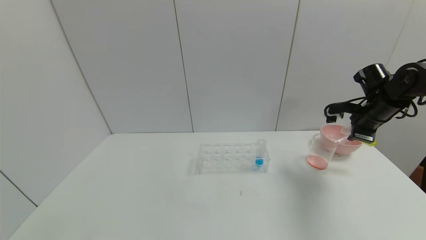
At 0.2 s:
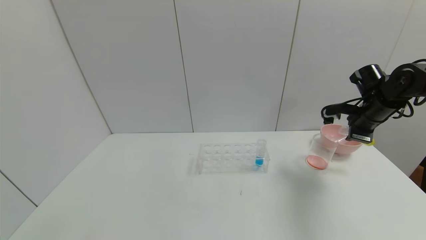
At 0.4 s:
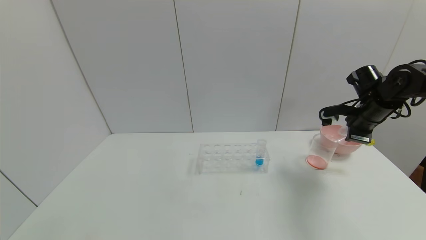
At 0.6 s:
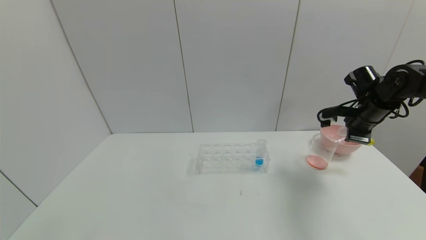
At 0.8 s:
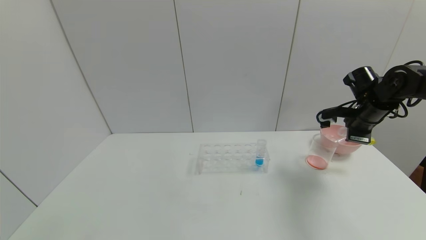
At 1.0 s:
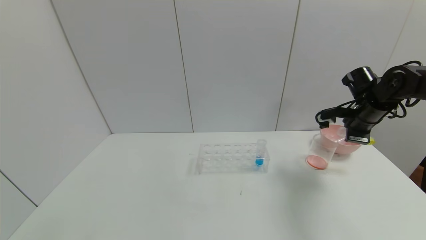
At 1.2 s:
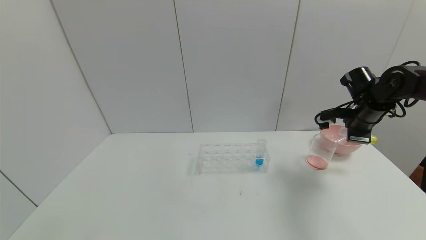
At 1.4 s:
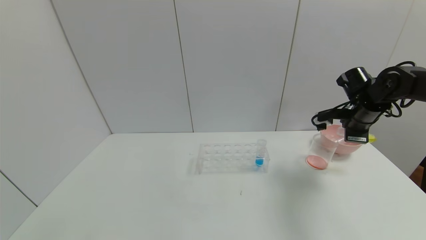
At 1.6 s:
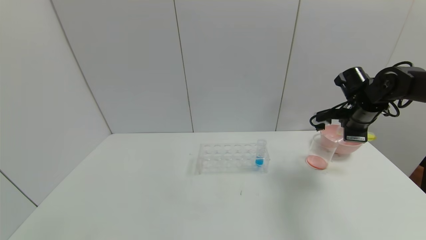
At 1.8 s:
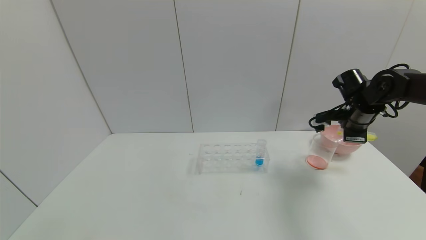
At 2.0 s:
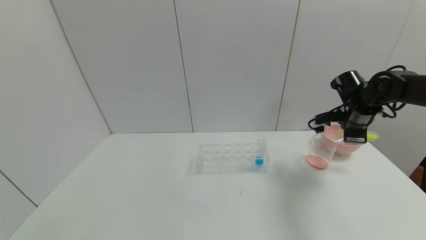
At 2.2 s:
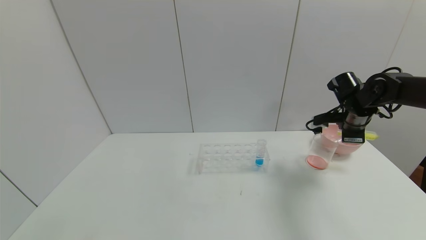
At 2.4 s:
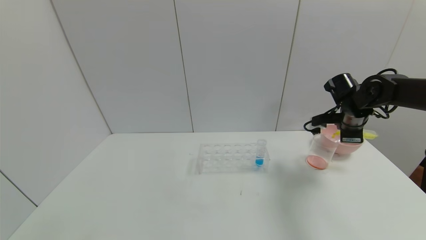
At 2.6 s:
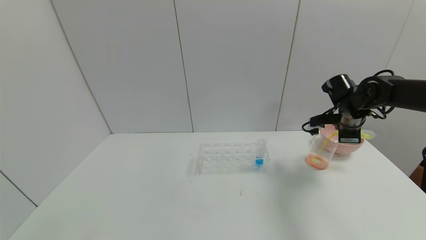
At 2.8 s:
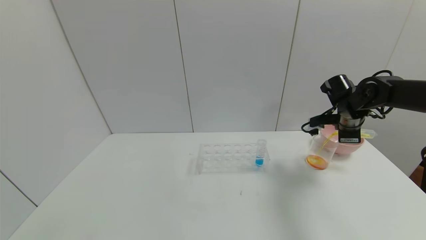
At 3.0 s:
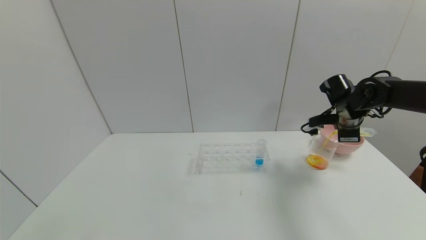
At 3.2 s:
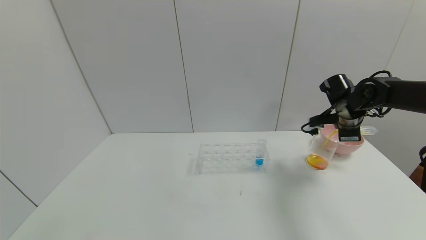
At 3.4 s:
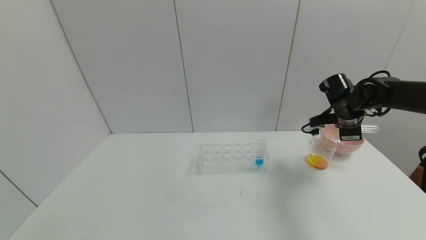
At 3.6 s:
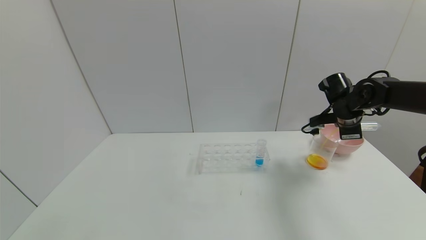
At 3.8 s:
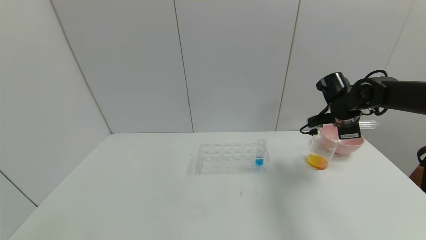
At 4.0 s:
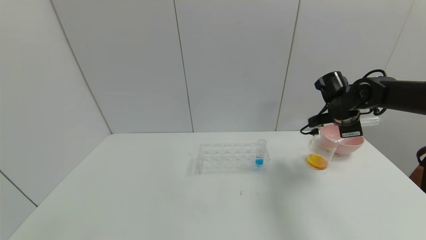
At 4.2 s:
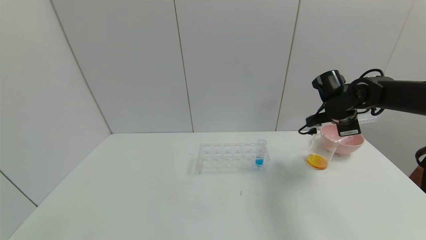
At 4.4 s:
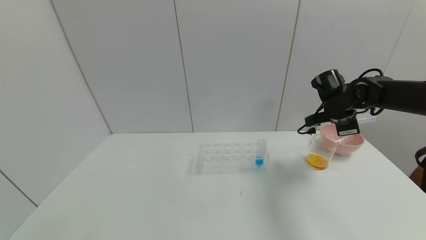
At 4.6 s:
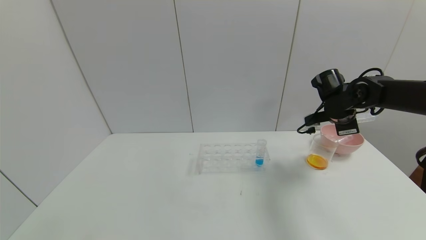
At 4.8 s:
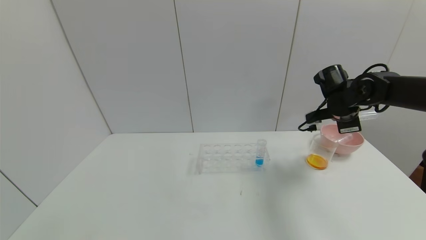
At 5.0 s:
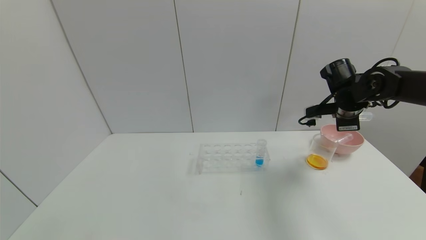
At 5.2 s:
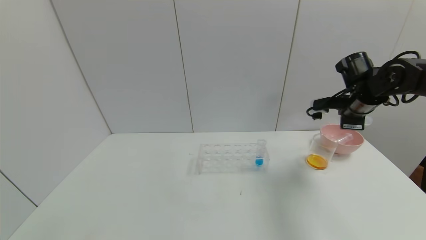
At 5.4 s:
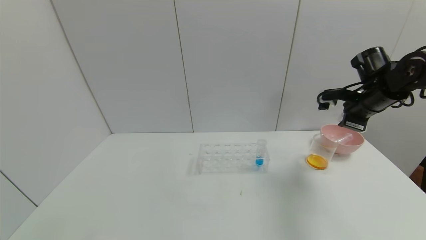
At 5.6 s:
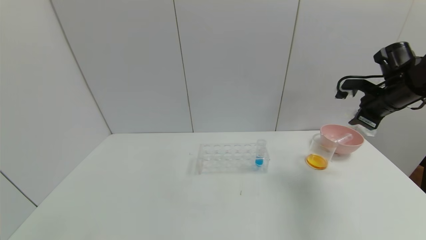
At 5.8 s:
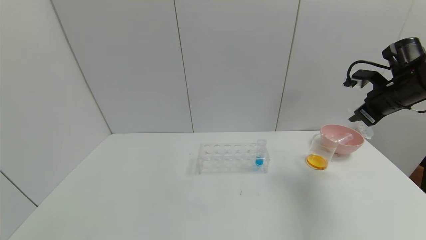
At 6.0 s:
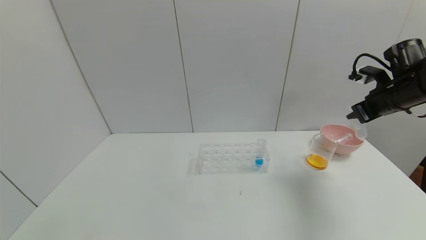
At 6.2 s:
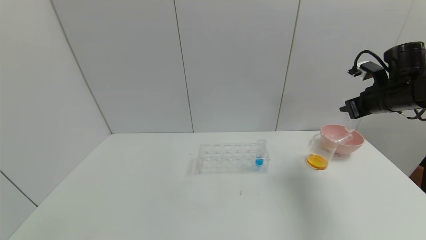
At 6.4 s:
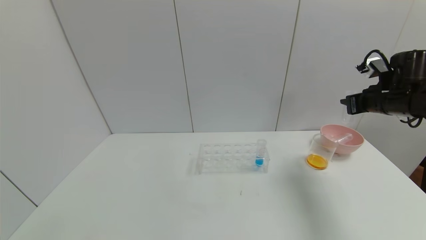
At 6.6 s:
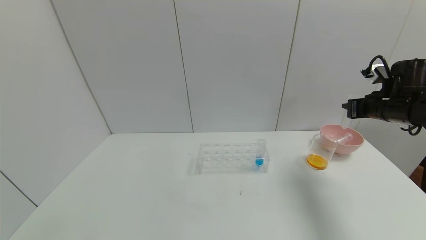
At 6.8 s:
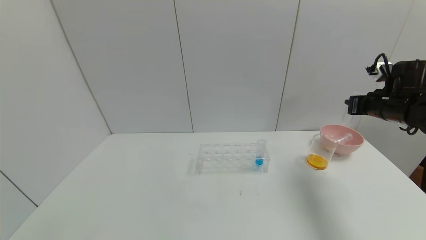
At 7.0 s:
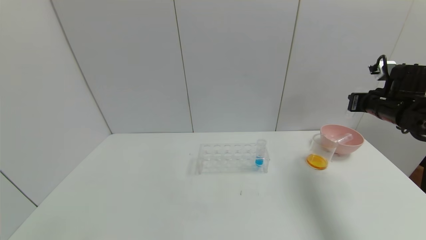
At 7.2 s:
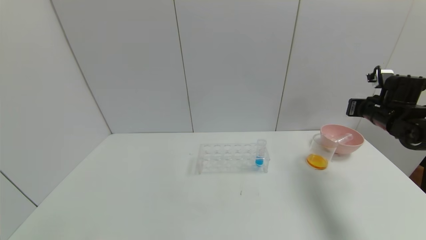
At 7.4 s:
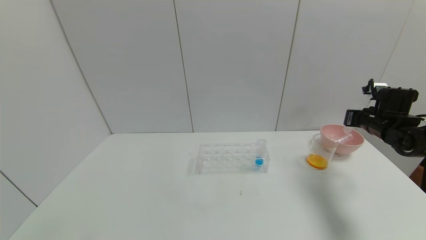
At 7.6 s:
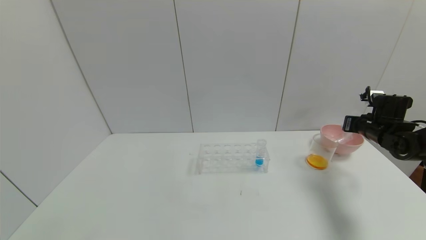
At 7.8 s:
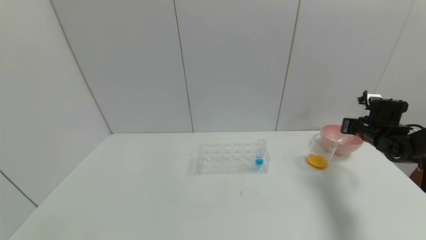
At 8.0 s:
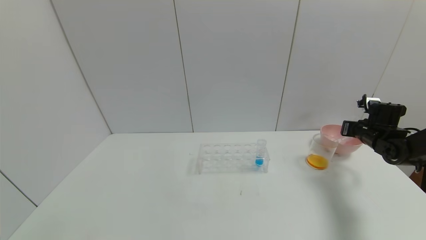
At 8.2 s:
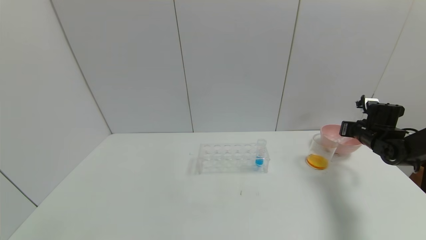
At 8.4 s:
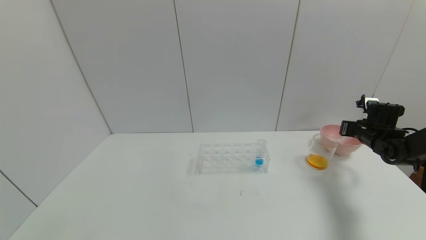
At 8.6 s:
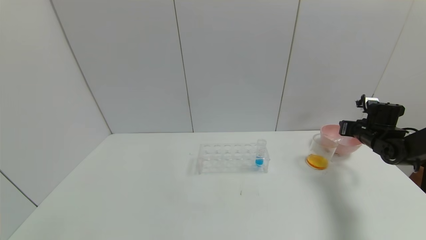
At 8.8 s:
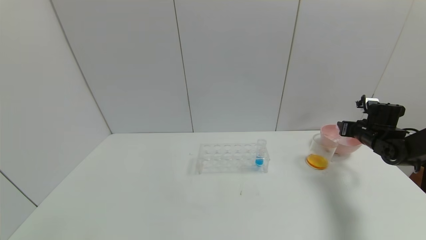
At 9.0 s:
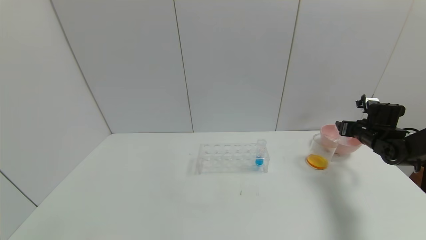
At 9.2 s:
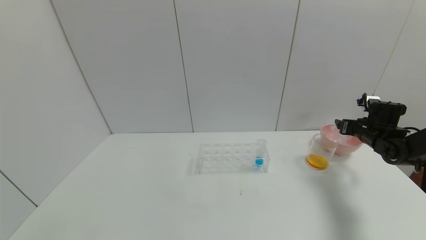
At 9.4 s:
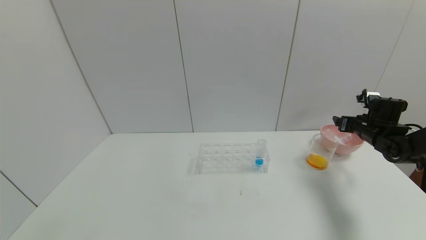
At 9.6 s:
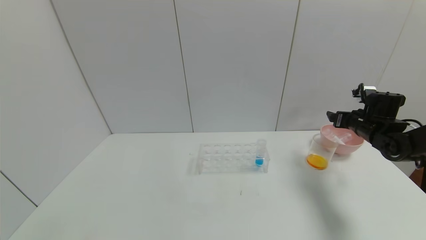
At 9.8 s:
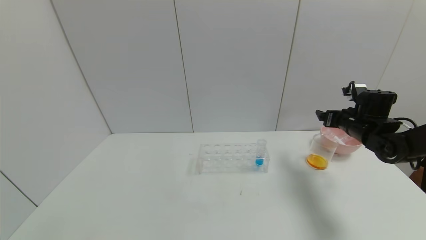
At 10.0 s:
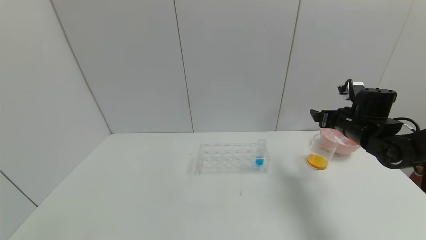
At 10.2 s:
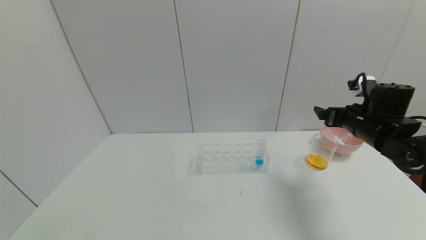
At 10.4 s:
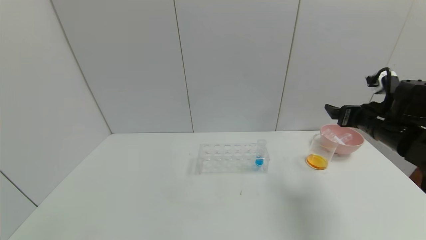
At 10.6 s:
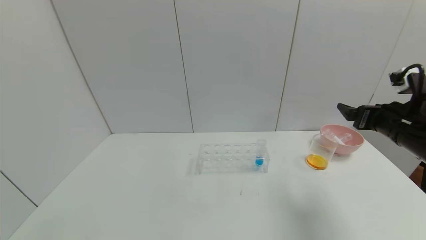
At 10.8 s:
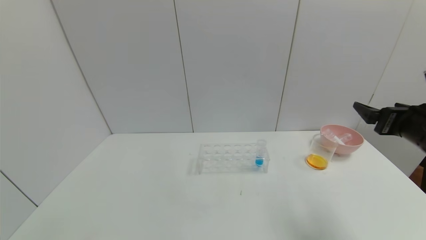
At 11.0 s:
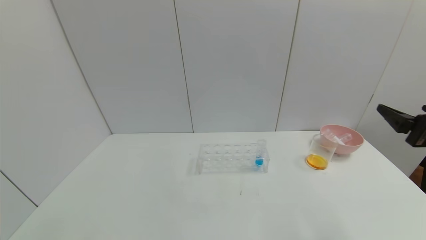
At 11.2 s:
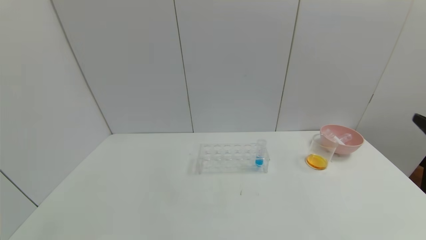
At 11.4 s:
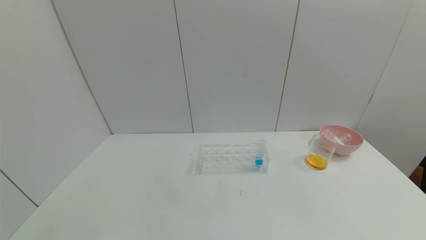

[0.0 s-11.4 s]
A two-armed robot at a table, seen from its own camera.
Task of the whole recording: pick up the test tube with yellow pigment and the test tube with red pigment by grippers and pour them into the beaker.
Step, 0.0 to 4.4 s: Pour the yellow reagent into the graduated cylinder with the right gripper.
Step, 4.6 to 9.0 s: Place the test tube into the bowl with the right gripper.
0.0 to 1.4 s: The grippers stay close to where they were, moving slightly.
1.4 to 2.8 s: The grippers stay close to where they were, moving slightly.
2.8 to 4.2 s: The grippers make only small movements.
4.2 to 5.6 s: The right gripper travels to the right and upward by about 10 cm.
5.6 to 7.2 s: The right gripper goes roughly 5 cm downward.
7.2 to 8.6 s: The right gripper moves downward, roughly 5 cm, and opens.
8.6 to 10.0 s: The right gripper goes approximately 15 cm to the left, upward and backward, and opens its fingers.
10.0 to 11.4 s: The right gripper shifts about 30 cm backward.
